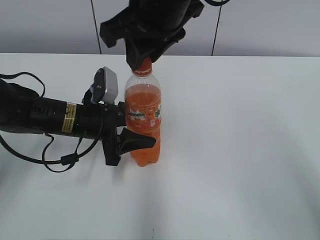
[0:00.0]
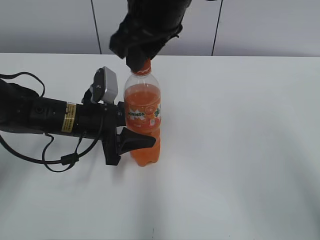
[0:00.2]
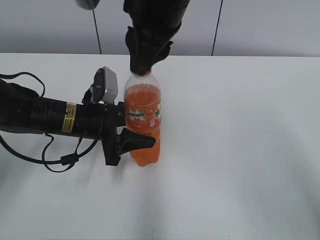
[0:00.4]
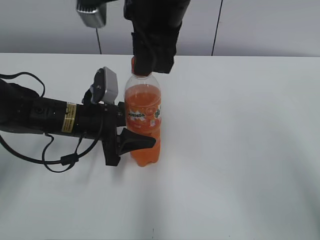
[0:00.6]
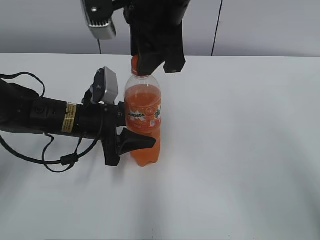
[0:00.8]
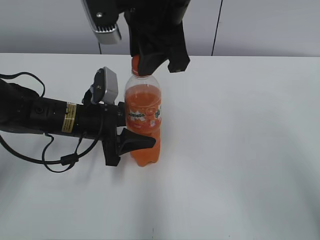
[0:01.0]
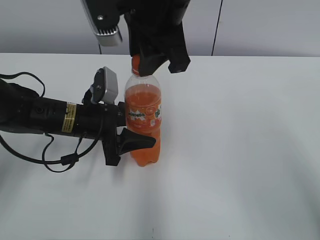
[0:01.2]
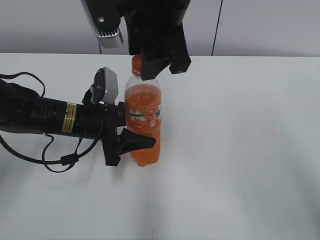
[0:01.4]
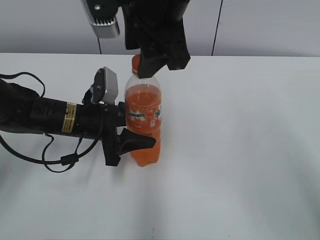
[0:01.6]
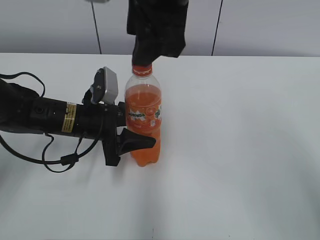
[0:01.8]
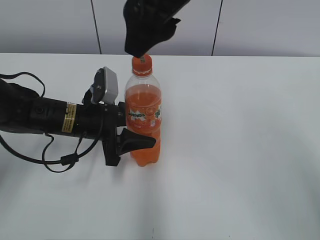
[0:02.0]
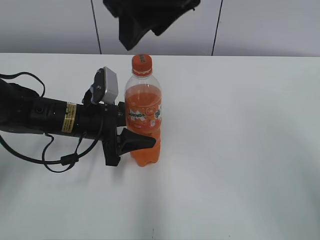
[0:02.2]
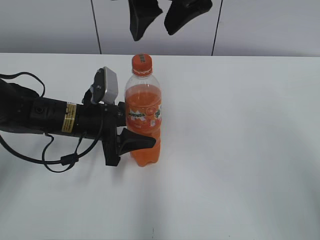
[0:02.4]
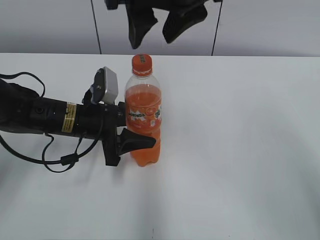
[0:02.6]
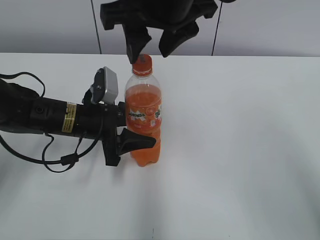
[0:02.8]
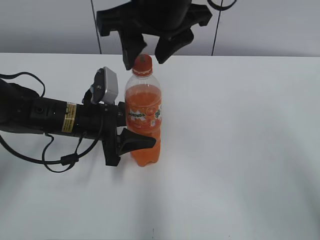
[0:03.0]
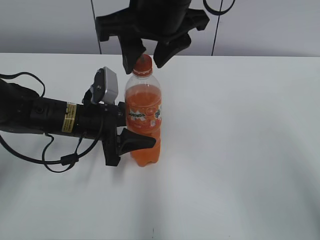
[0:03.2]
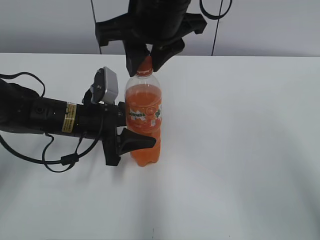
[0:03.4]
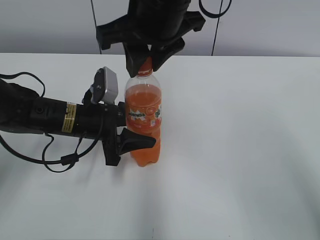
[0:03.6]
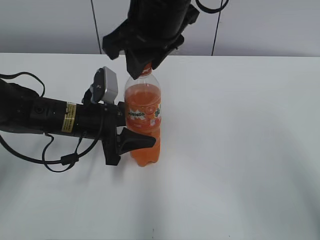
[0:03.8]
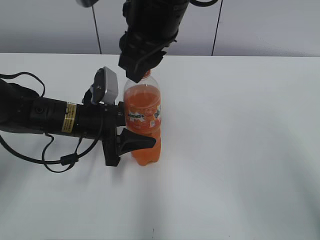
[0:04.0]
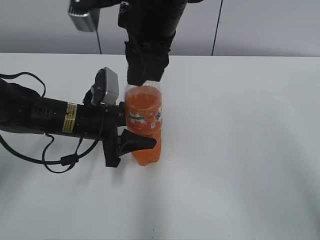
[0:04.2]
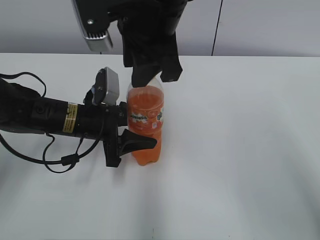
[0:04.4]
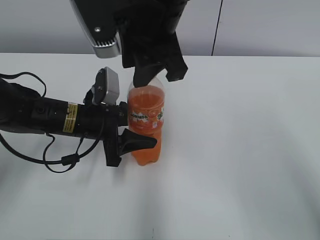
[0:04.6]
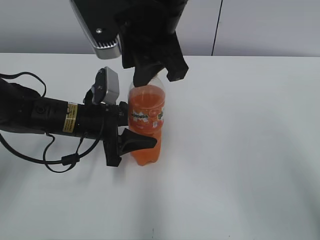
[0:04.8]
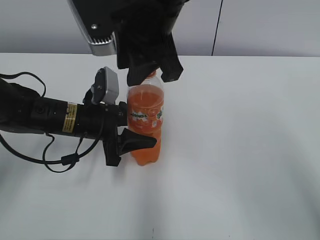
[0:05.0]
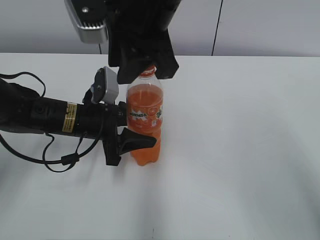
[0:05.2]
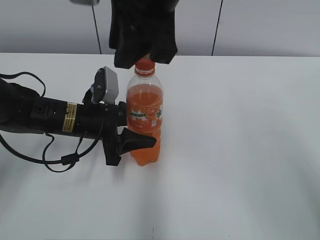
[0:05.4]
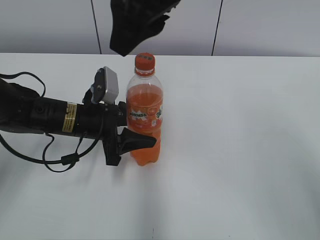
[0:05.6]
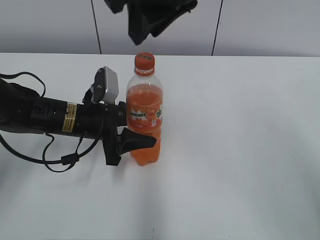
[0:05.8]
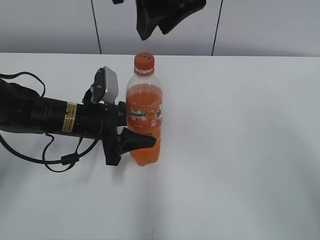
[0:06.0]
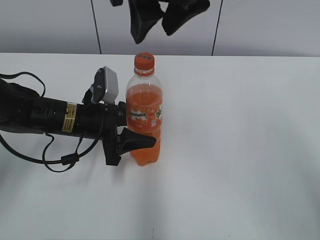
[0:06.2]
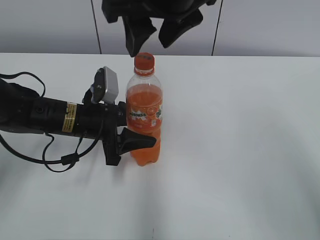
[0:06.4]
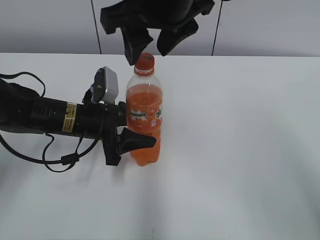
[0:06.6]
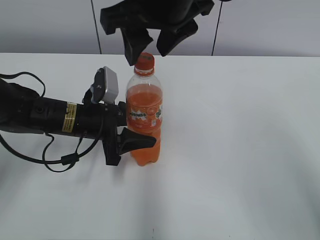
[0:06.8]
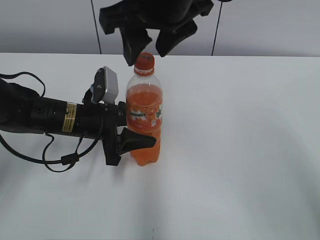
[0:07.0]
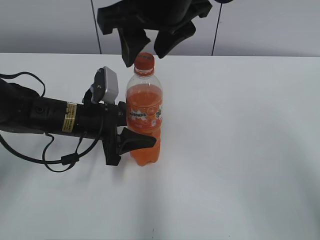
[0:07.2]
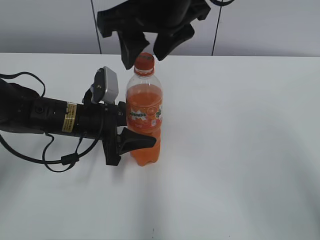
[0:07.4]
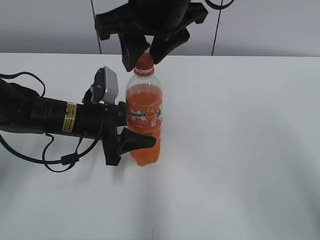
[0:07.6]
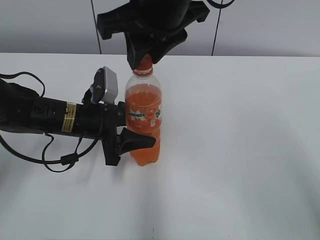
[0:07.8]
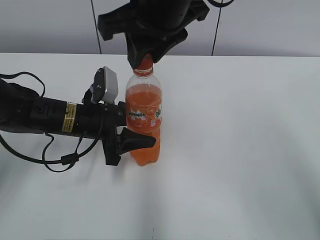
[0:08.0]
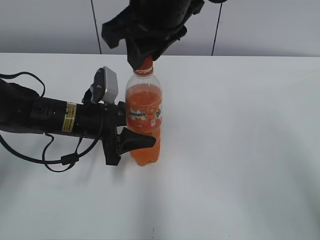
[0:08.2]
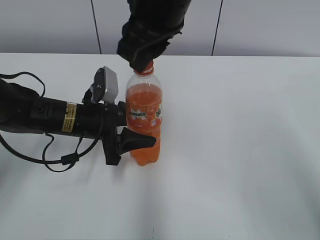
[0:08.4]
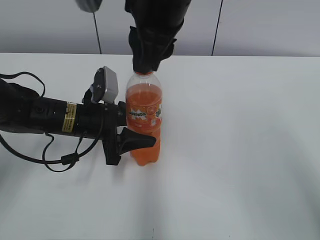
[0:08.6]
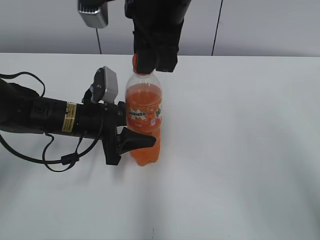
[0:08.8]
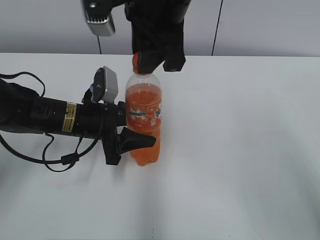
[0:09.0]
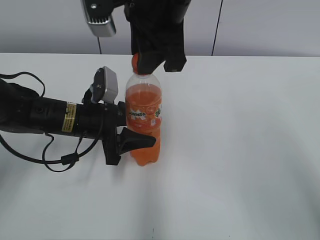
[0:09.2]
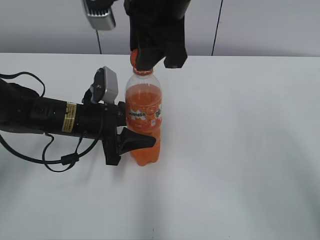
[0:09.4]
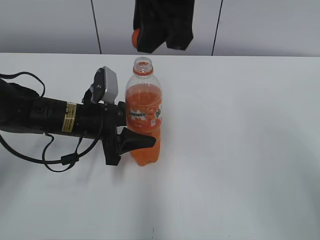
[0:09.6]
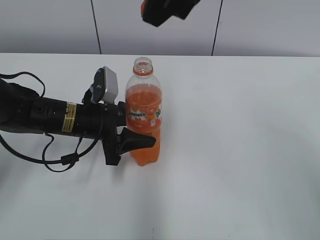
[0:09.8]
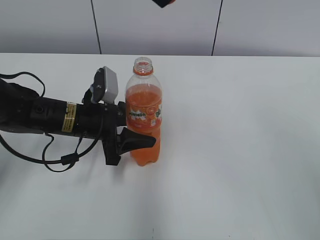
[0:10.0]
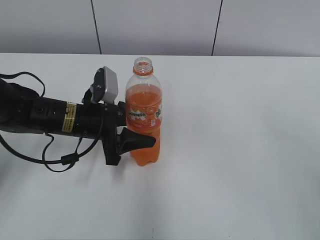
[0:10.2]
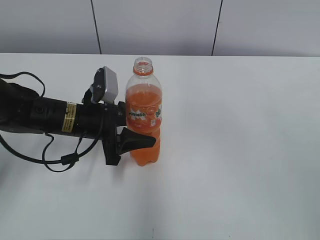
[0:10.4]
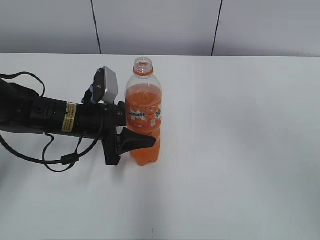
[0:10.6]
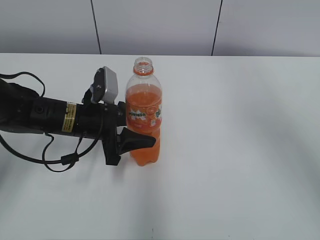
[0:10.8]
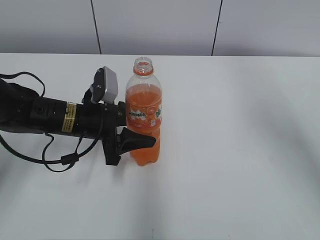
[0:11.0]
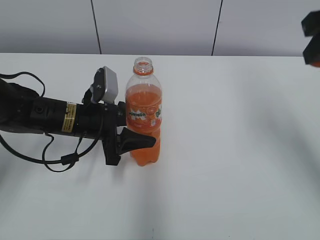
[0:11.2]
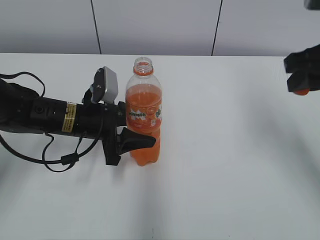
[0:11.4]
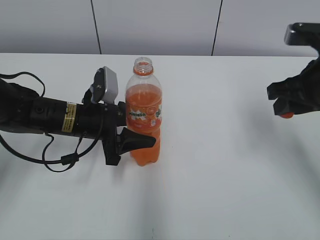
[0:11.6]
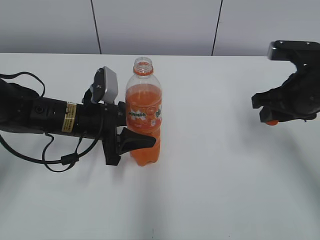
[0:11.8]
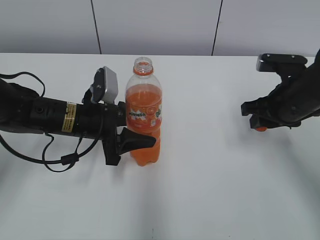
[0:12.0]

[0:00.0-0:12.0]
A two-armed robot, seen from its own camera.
0:00.0 to 0:01.6: The right gripper opens up.
0:03.0 to 0:04.4: The right gripper closes its fingers.
0:04.4 to 0:06.0: The right gripper is displaced upward by some 5 cm.
0:06.0 to 0:07.6: The grippers stay close to where they were, moving slightly.
0:09.0 to 0:10.4: The right gripper travels upward and to the right by roughly 15 cm.
0:10.4 to 0:12.0: The right gripper travels downward by roughly 30 cm.

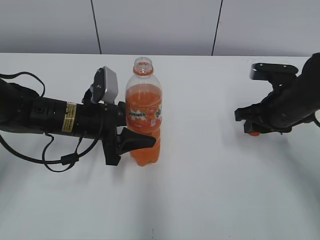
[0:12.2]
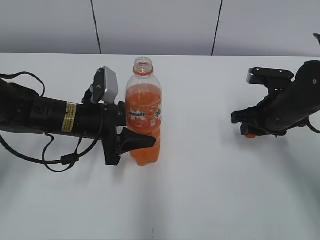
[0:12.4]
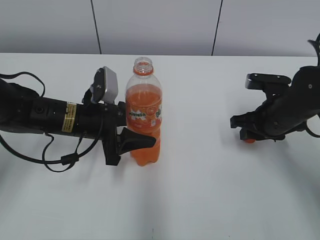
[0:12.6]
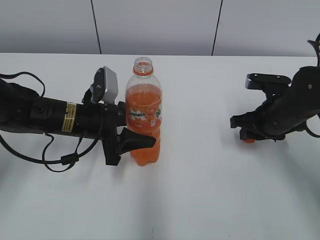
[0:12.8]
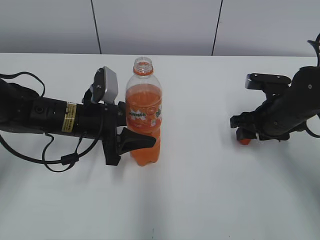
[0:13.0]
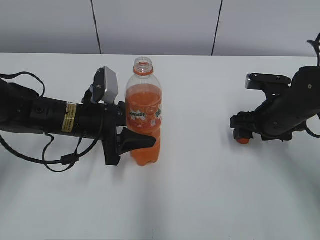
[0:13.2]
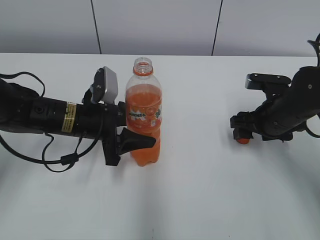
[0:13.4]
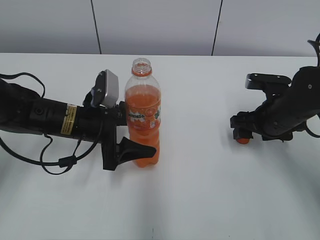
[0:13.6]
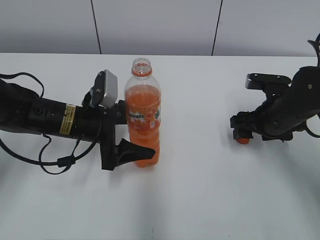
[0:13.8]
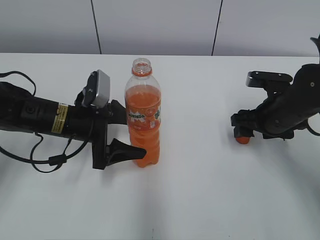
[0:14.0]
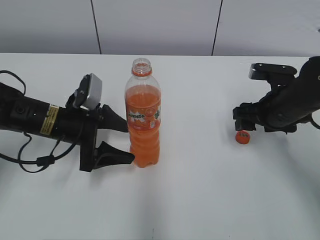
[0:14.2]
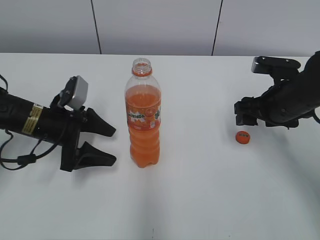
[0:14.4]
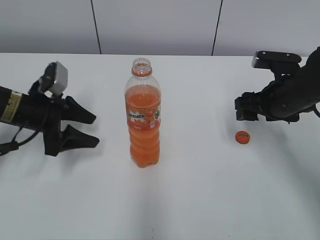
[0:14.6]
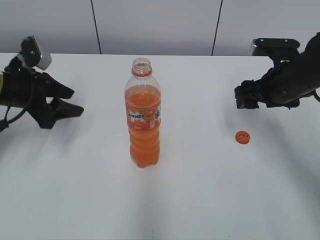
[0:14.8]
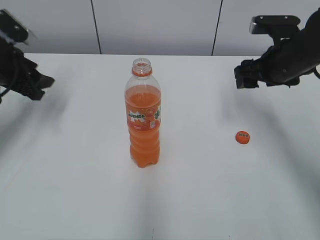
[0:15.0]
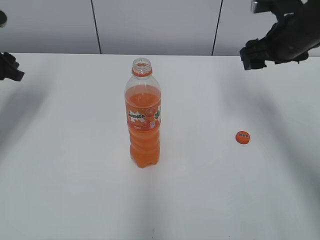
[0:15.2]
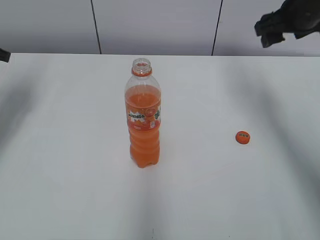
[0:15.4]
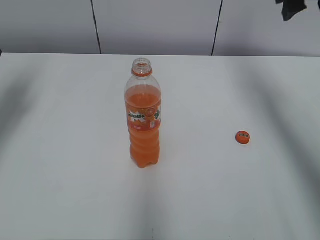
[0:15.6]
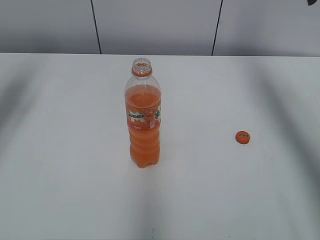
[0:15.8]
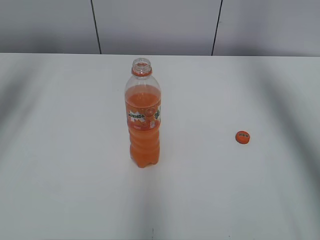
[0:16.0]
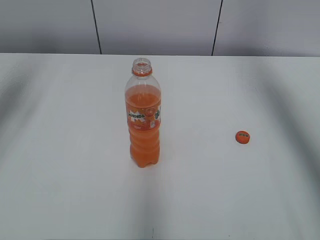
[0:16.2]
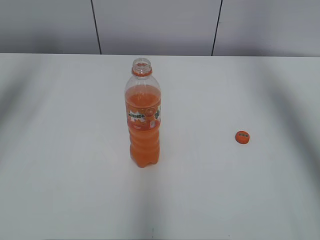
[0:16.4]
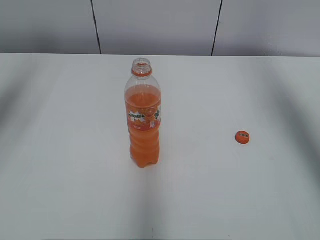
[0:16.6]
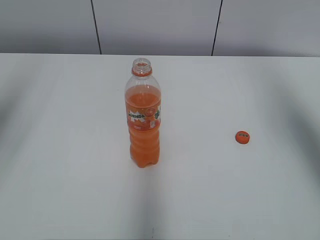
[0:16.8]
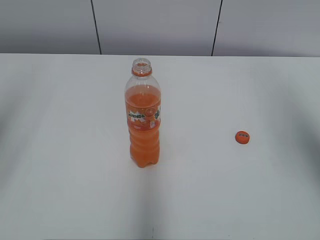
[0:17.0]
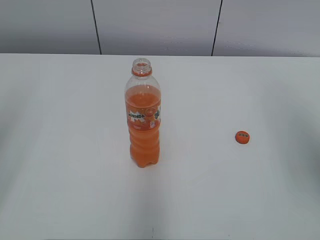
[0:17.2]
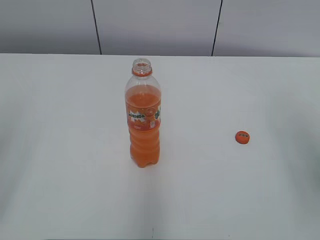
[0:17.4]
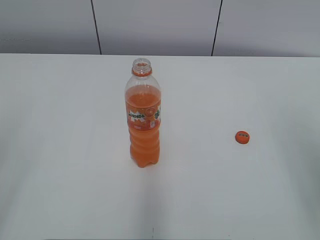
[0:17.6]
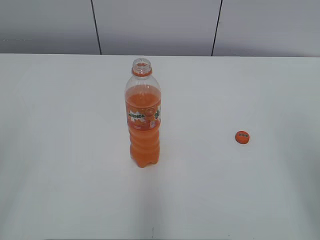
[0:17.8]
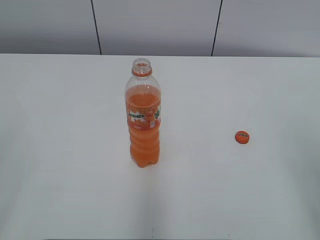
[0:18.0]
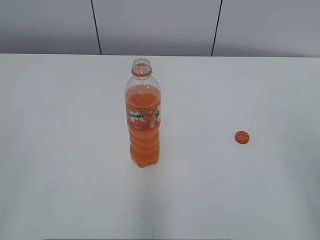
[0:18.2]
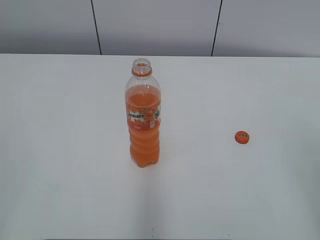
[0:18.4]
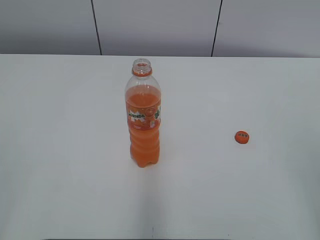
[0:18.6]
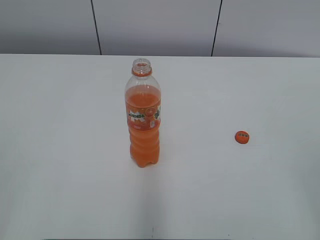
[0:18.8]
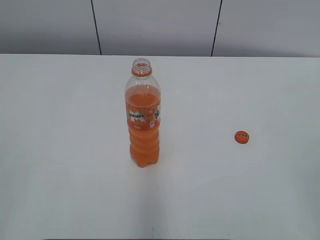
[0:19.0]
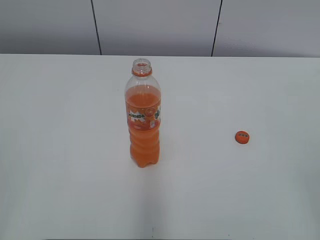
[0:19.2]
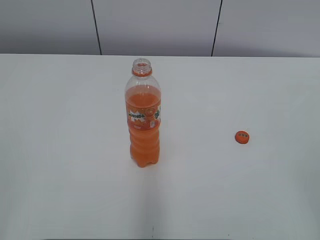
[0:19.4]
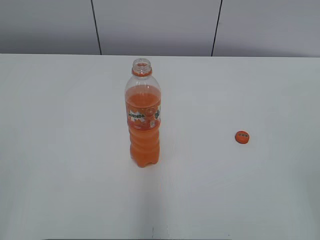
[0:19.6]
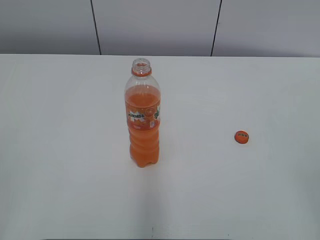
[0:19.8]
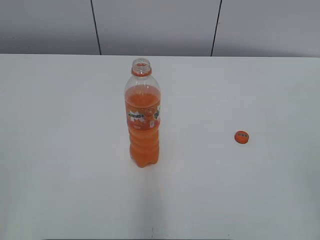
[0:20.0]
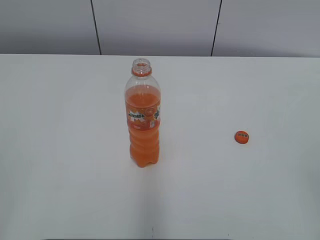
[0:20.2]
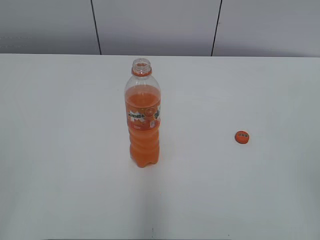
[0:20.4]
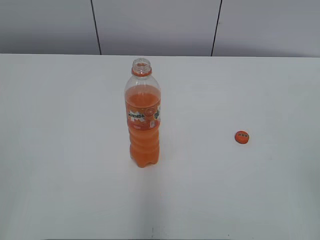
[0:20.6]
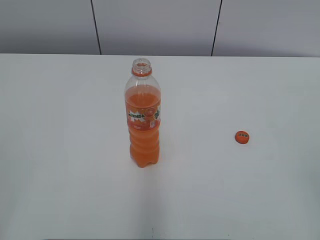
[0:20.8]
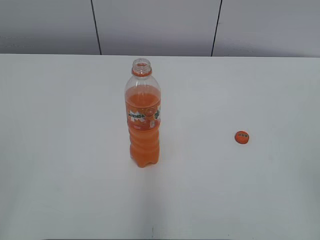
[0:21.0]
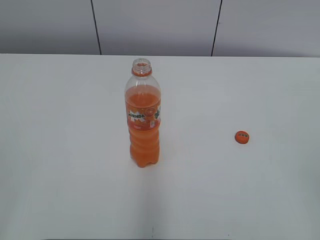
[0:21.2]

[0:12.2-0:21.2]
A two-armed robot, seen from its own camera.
Step, 0:13.4 to 0:13.6: Place the Mirinda with the left hand.
0:12.2 to 0:13.8: The right gripper opens up. Meanwhile the left gripper opens its fingers.
0:13.8 to 0:15.2: The right gripper shifts roughly 15 cm upward and forward. Meanwhile the left gripper travels to the left and upward by approximately 20 cm, and closes up.
0:15.2 to 0:16.6: The two grippers go roughly 20 cm upward.
0:16.6 to 0:18.2: The right gripper goes approximately 30 cm backward and downward; the left gripper moves backward, about 30 cm.

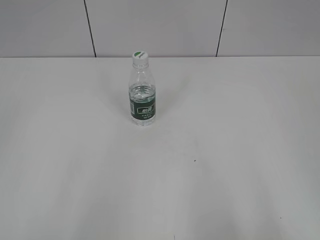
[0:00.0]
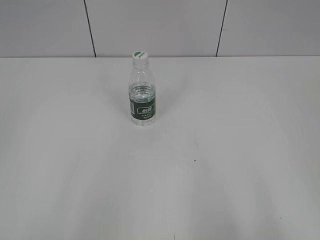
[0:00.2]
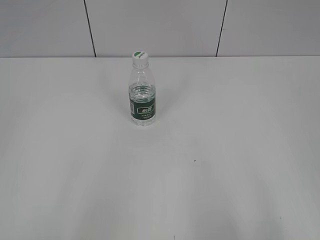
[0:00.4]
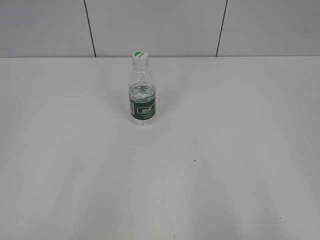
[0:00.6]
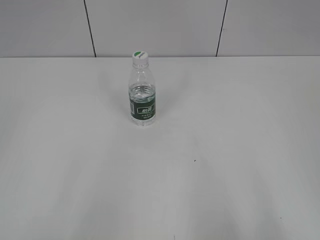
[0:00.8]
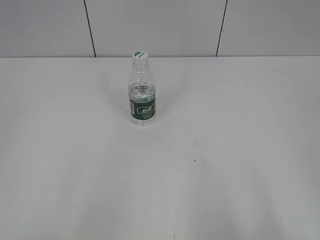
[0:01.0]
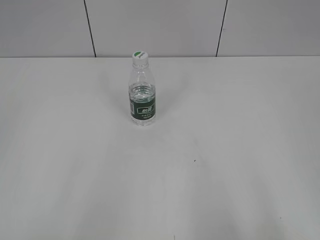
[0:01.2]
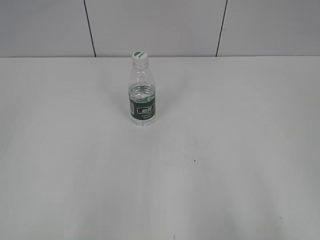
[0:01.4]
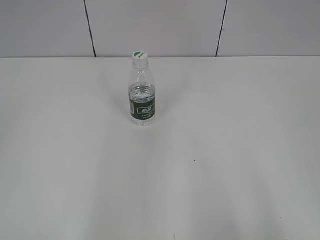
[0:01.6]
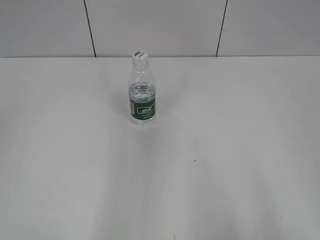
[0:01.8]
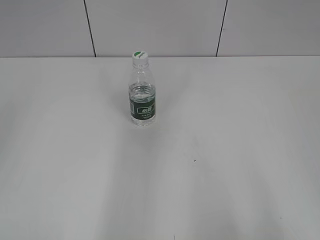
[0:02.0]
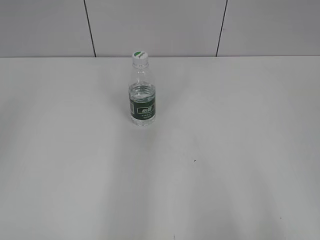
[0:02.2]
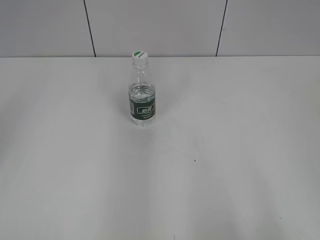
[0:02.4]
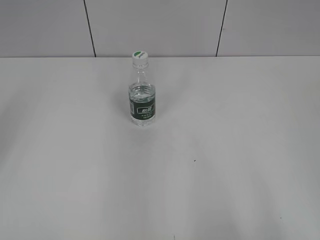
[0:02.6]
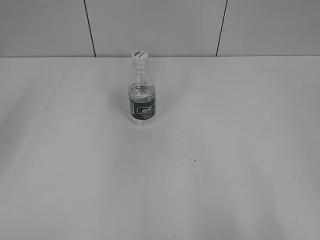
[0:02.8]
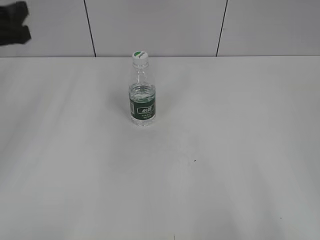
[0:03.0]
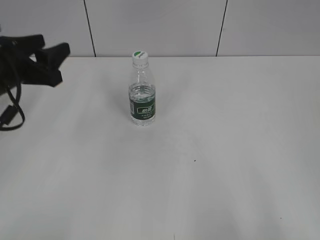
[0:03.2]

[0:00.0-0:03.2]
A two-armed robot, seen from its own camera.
0:01.6 to 0:03.2: The left gripper shifts roughly 30 cm forward.
